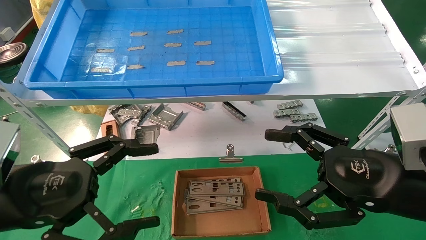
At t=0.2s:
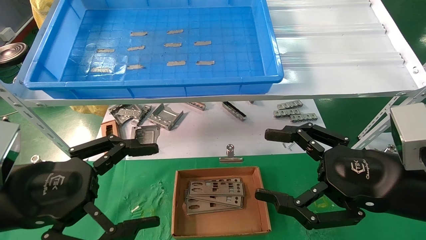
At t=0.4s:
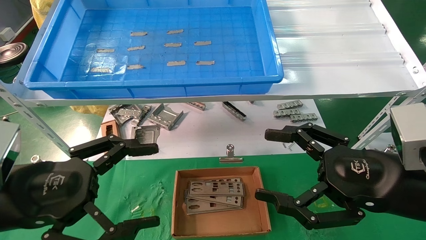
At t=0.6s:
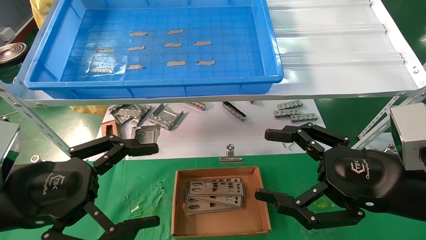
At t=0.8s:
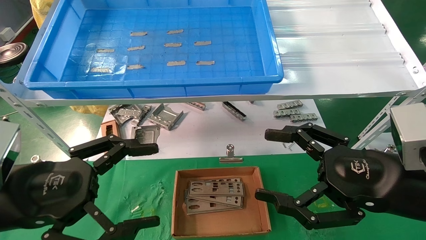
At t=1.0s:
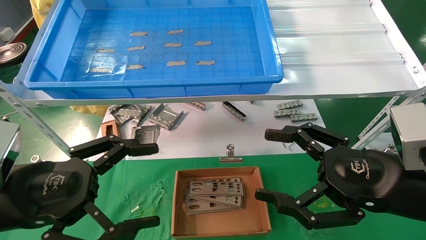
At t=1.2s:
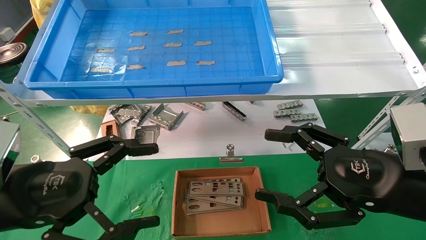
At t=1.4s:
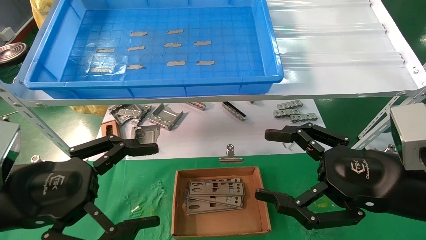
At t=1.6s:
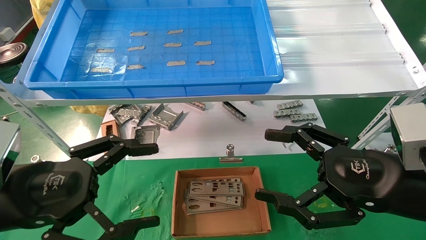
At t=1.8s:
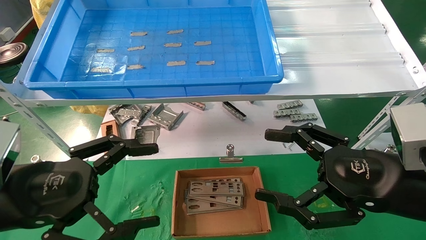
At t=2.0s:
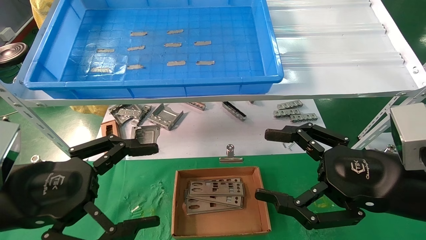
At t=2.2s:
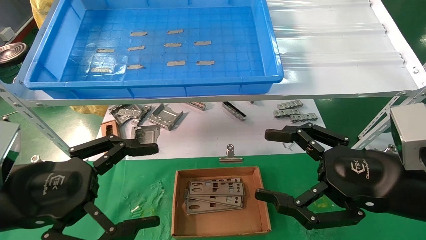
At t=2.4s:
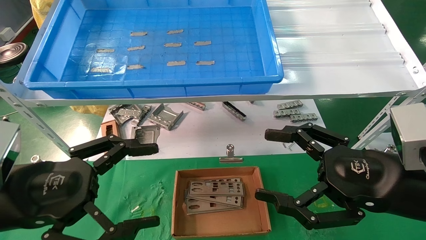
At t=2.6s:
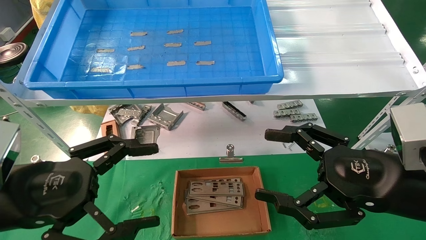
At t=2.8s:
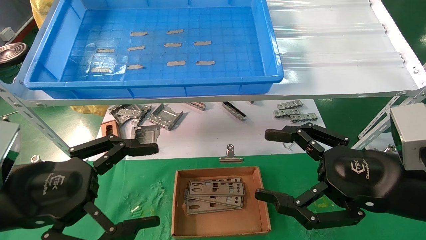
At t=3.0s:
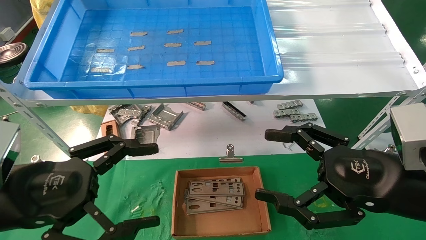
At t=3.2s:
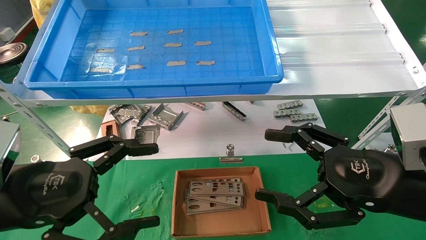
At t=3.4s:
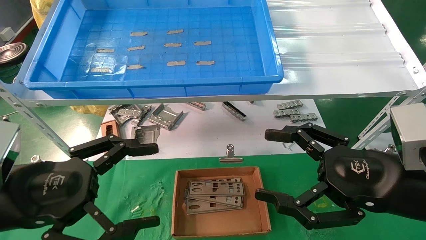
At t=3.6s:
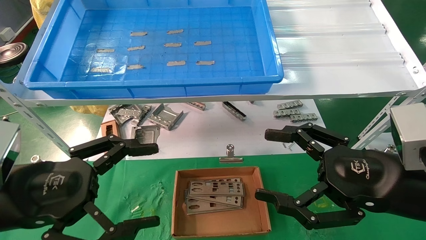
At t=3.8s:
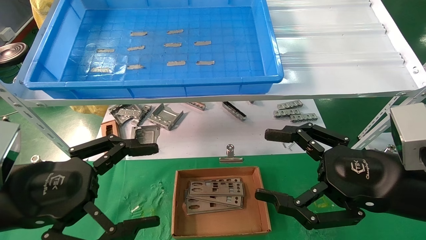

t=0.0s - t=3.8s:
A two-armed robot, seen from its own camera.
Task of the whole recording: pick up the parts on the tray and put them in the cardboard box.
t=0.0s - t=3.8s: Both grippers stay about where they are.
